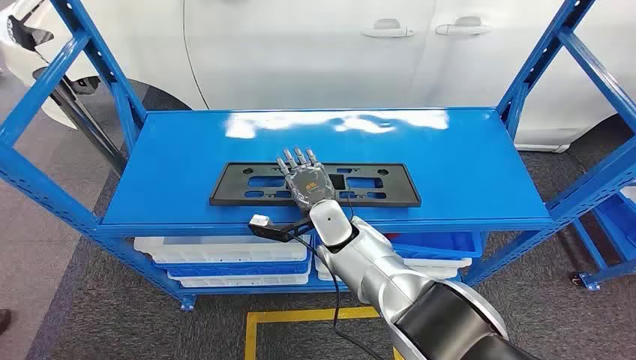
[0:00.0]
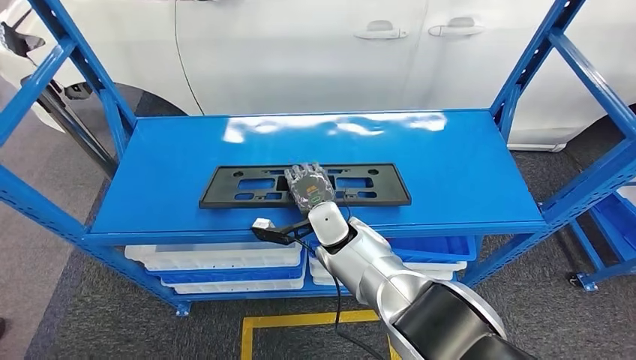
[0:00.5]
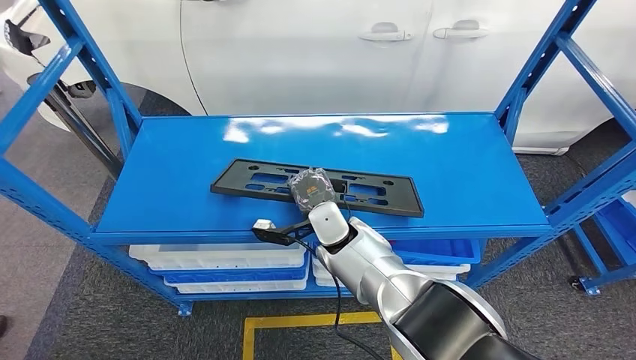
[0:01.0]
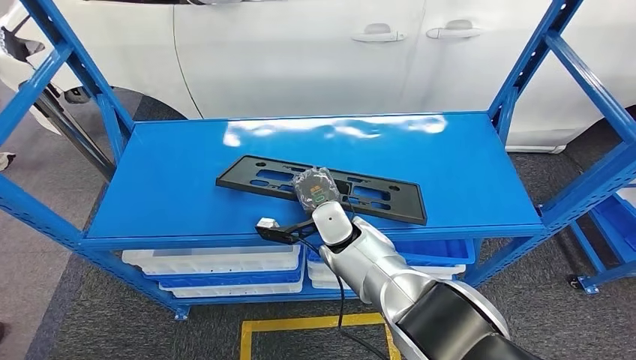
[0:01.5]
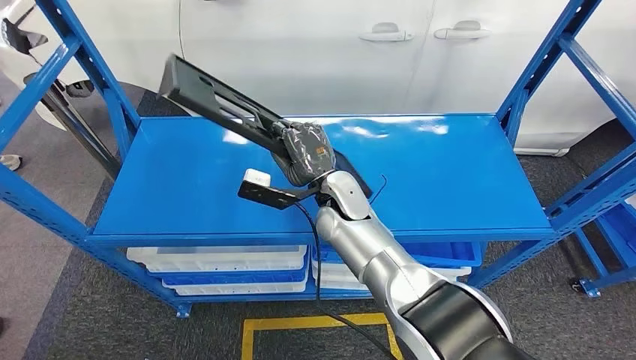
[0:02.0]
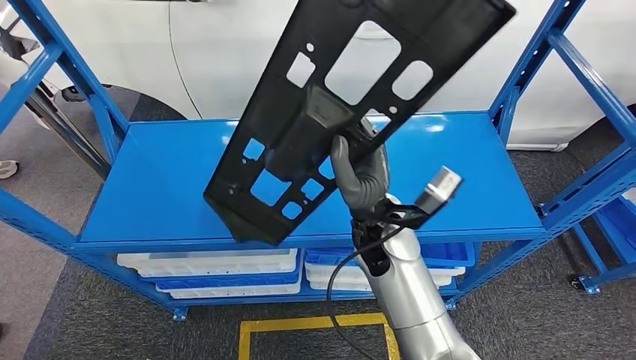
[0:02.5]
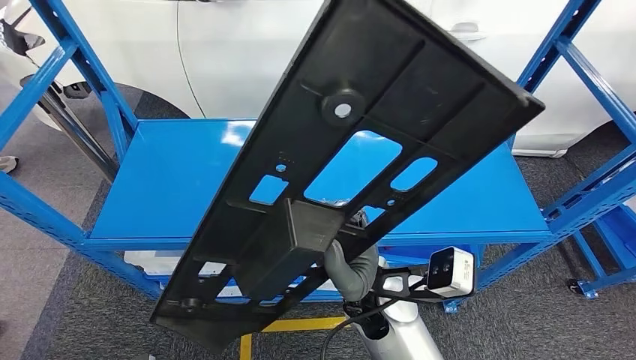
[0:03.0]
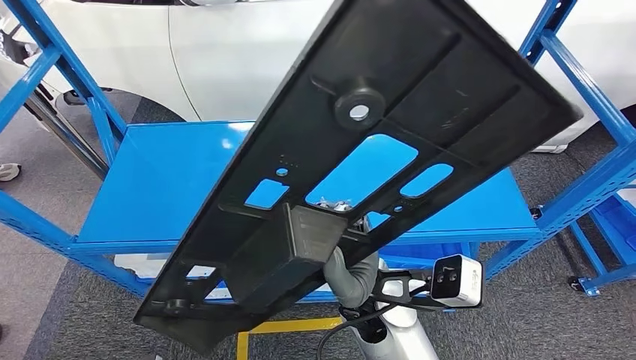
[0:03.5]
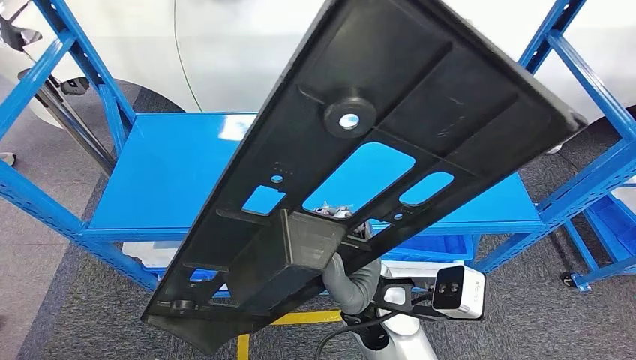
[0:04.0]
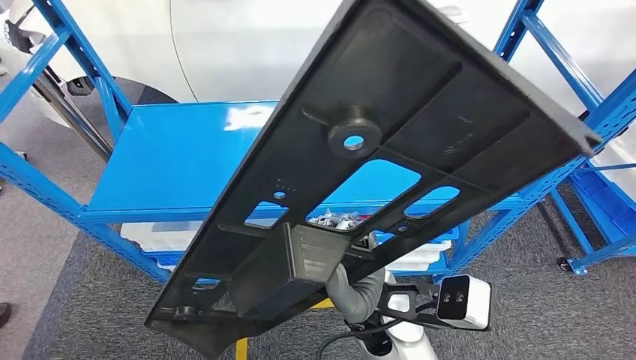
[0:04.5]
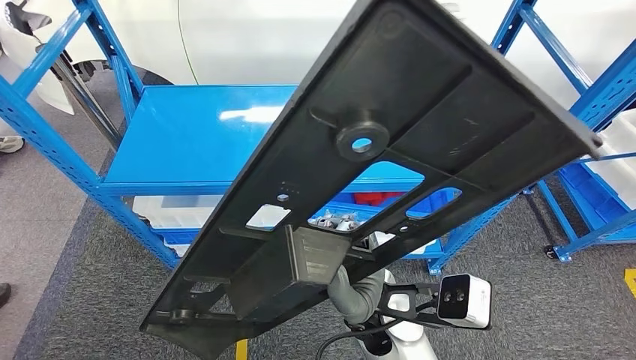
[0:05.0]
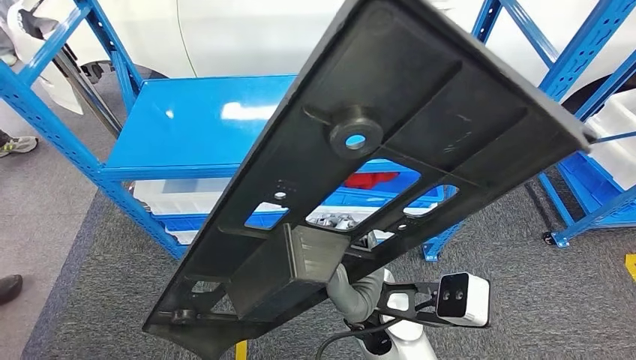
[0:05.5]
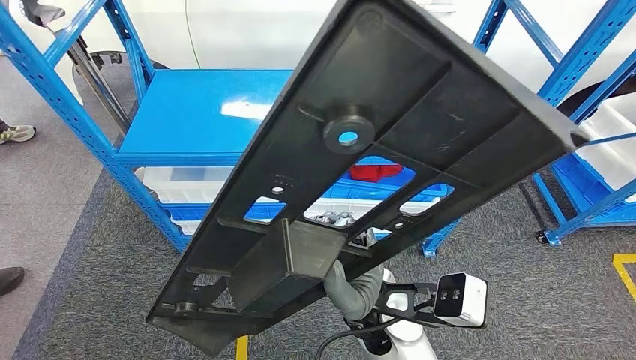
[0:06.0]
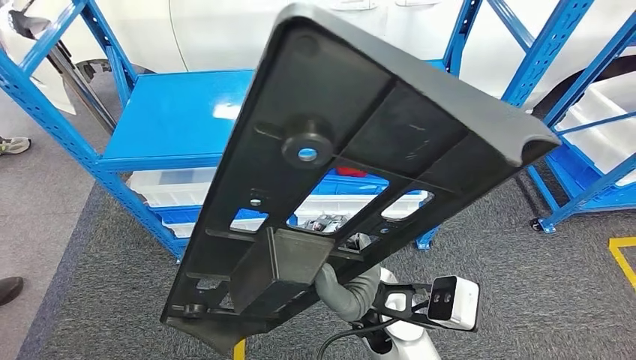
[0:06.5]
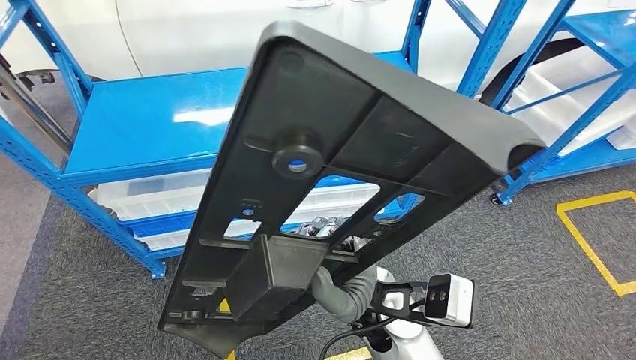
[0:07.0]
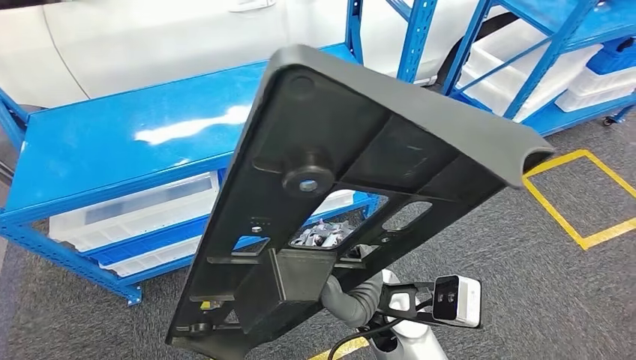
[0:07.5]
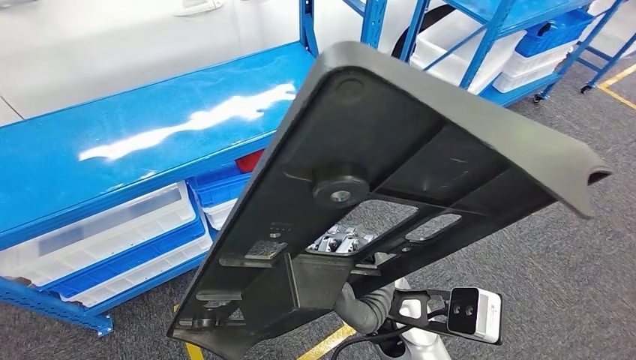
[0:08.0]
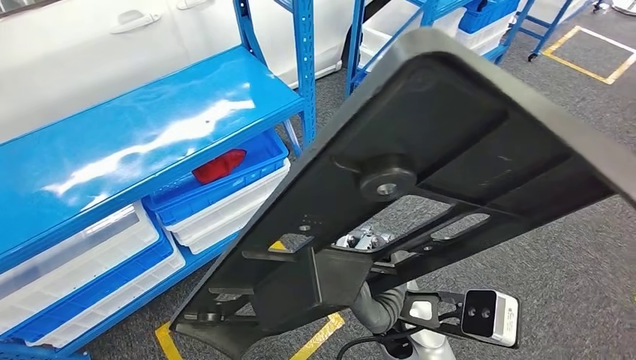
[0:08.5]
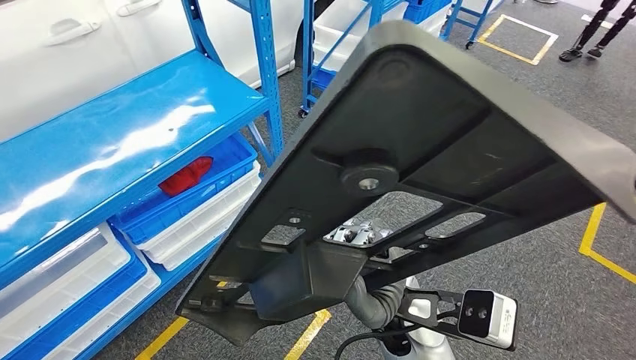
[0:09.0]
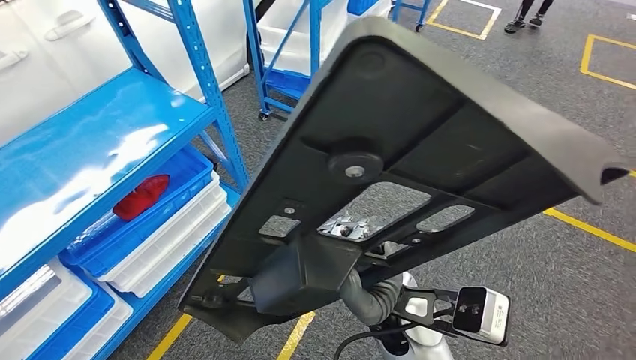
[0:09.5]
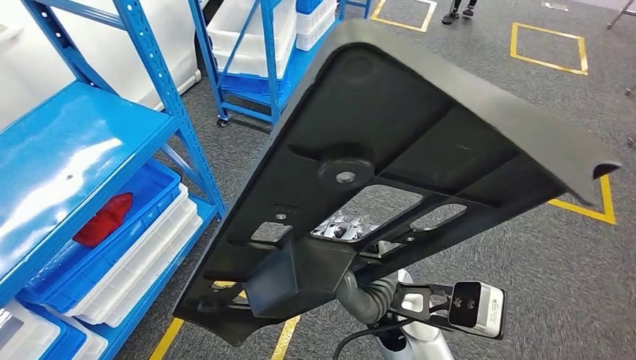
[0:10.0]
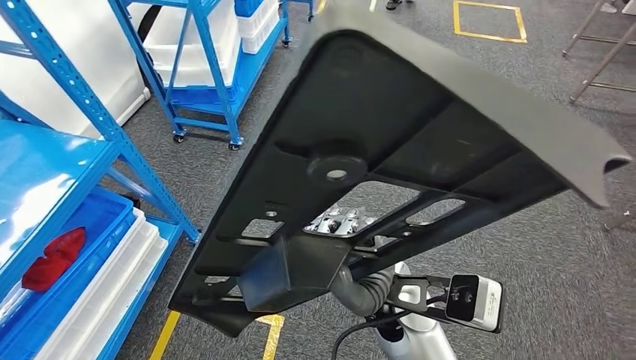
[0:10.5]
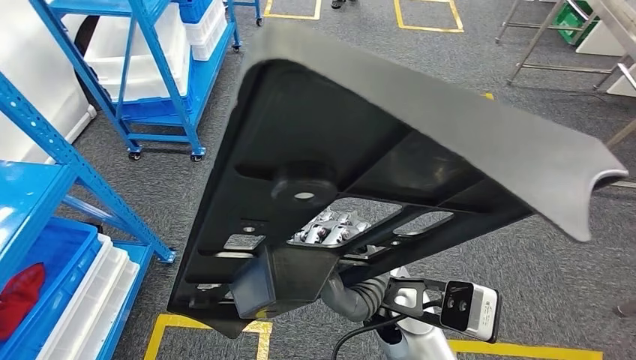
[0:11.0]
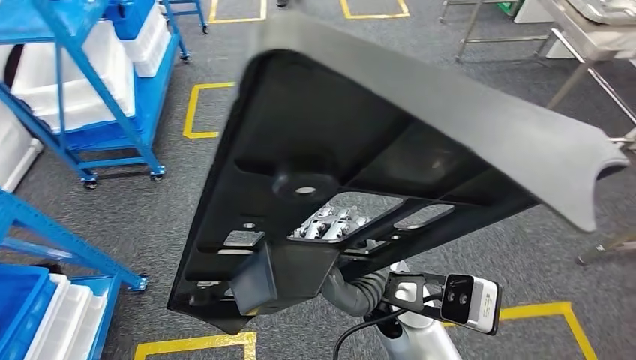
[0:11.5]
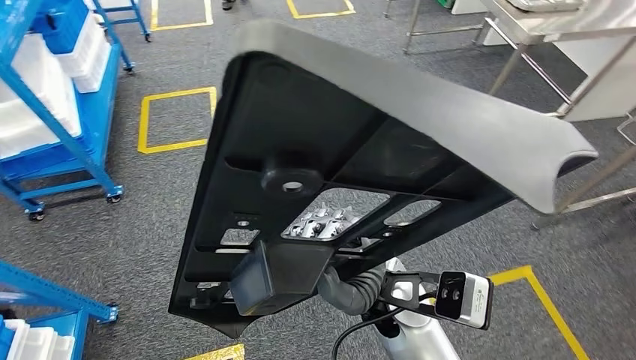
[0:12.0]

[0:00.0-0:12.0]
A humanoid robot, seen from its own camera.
Step, 0:00.0 to 0:04.5: Pick up the large material from the shelf.

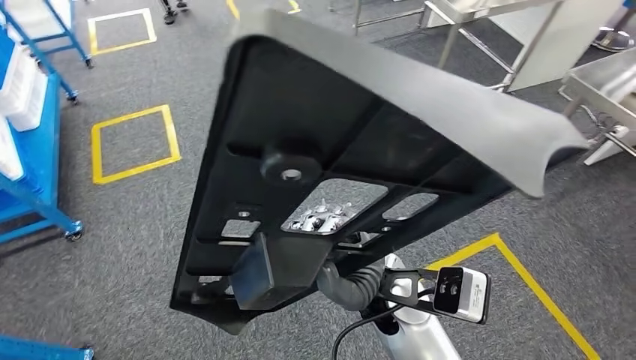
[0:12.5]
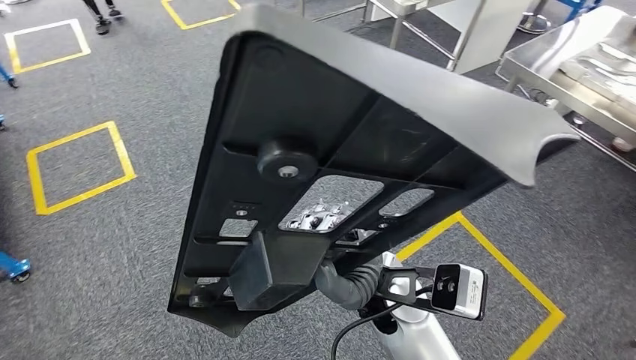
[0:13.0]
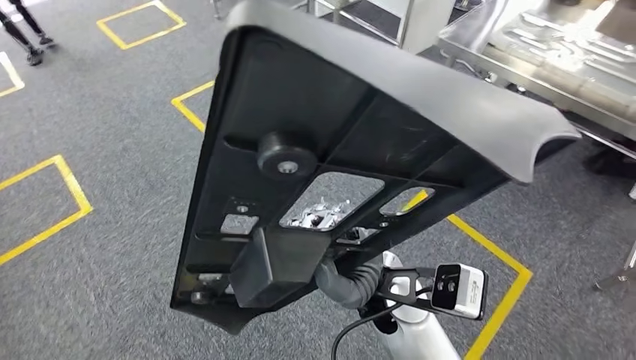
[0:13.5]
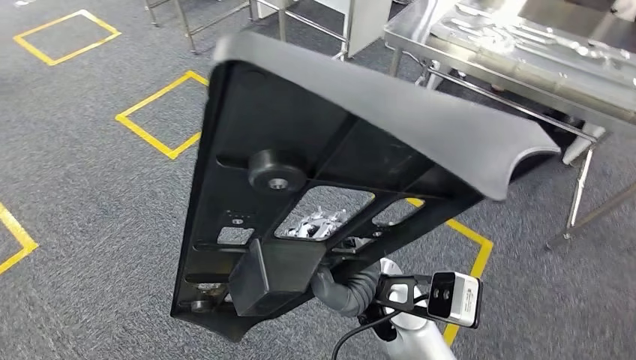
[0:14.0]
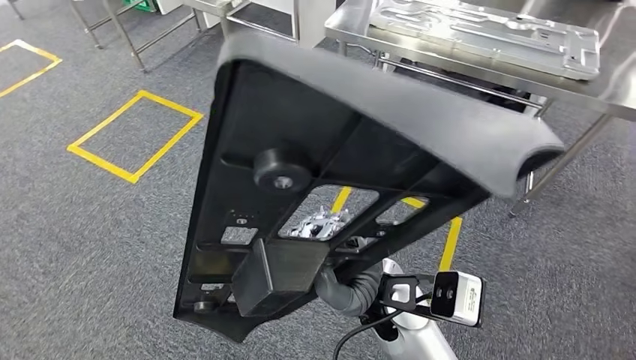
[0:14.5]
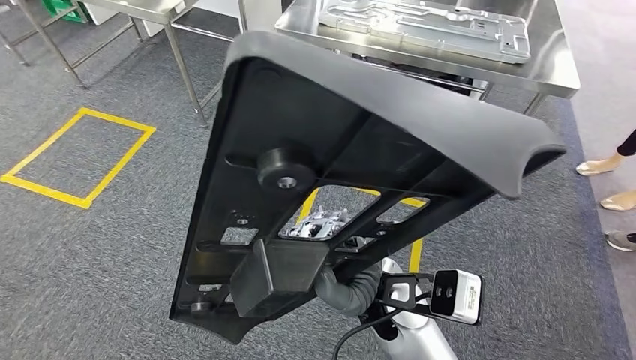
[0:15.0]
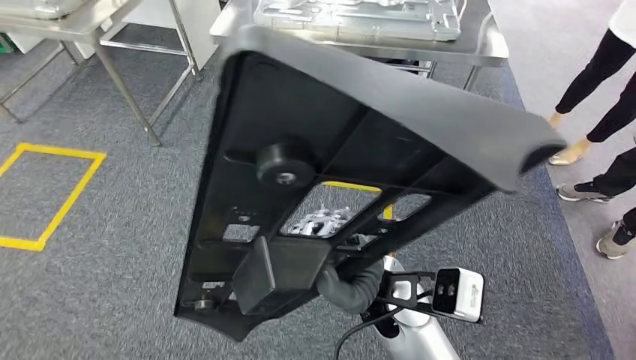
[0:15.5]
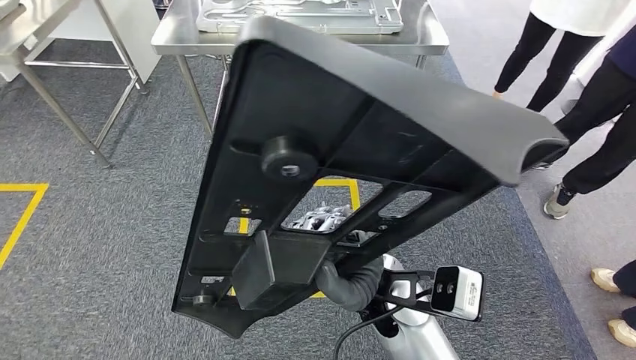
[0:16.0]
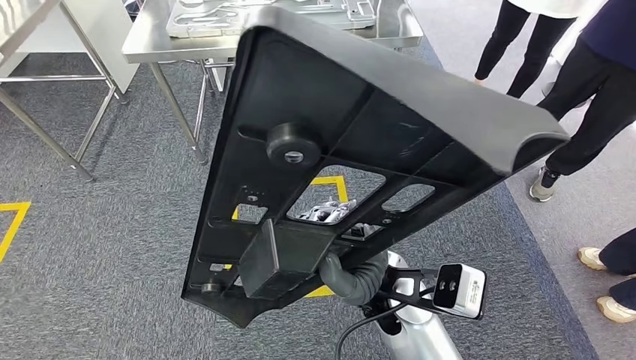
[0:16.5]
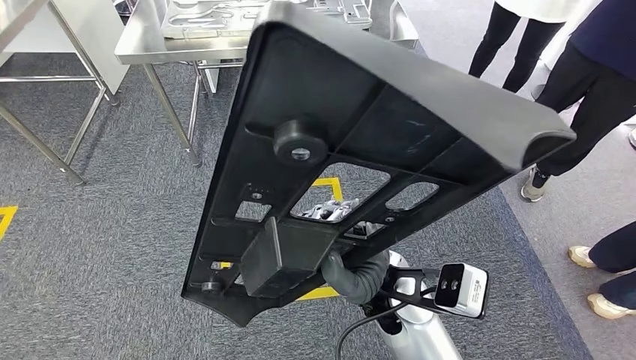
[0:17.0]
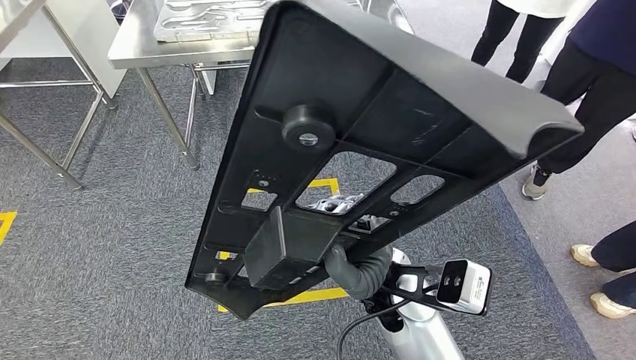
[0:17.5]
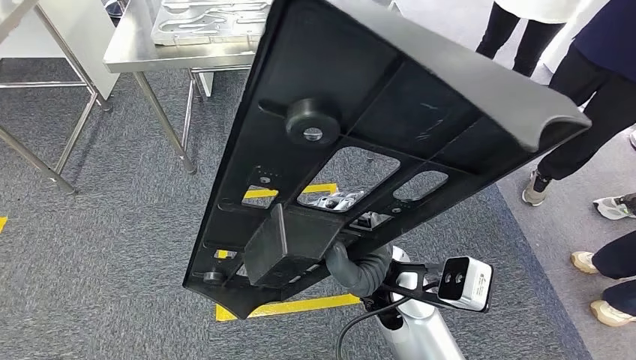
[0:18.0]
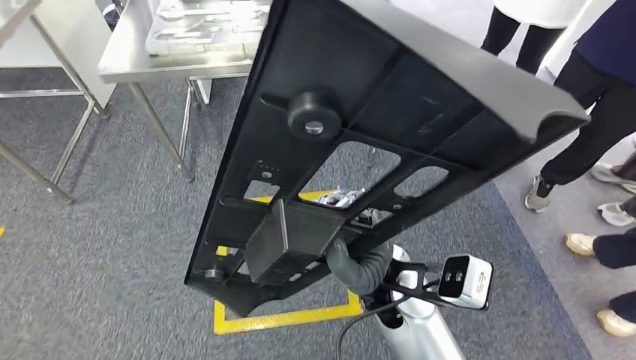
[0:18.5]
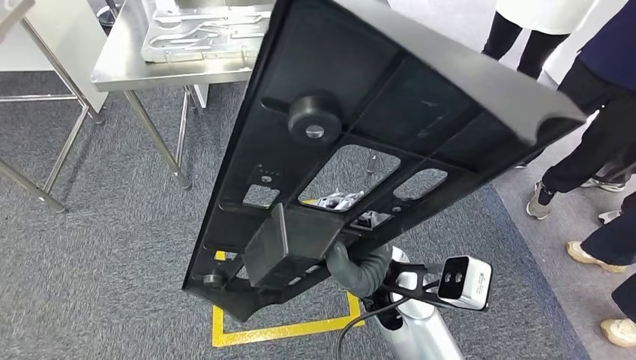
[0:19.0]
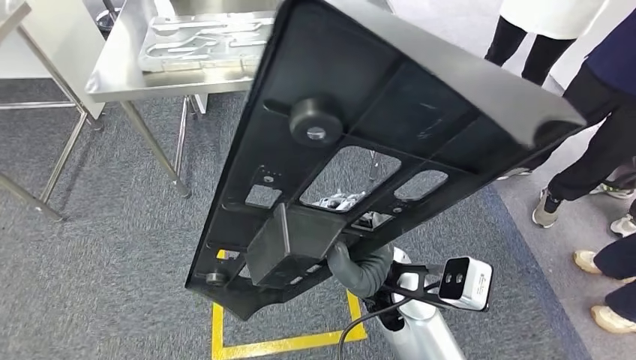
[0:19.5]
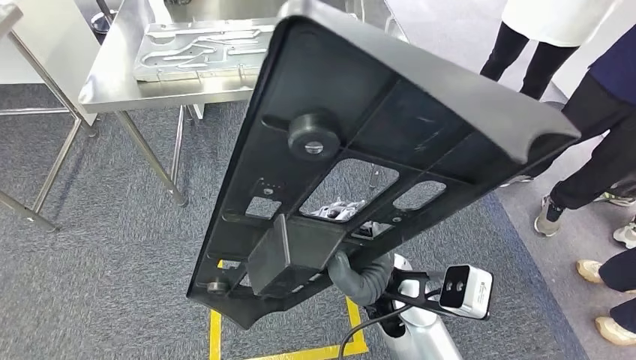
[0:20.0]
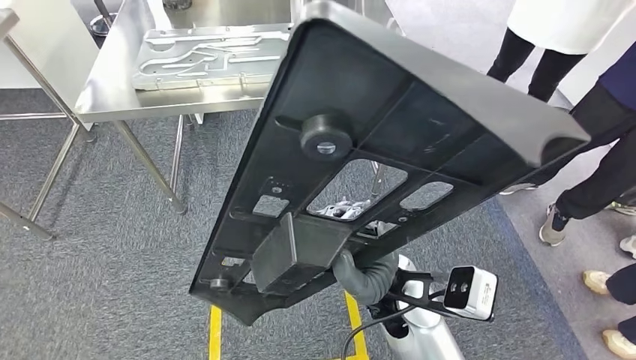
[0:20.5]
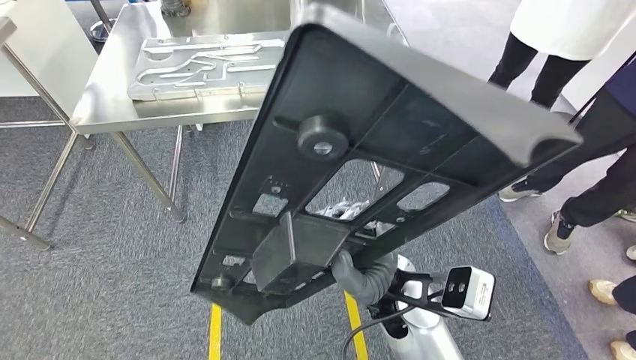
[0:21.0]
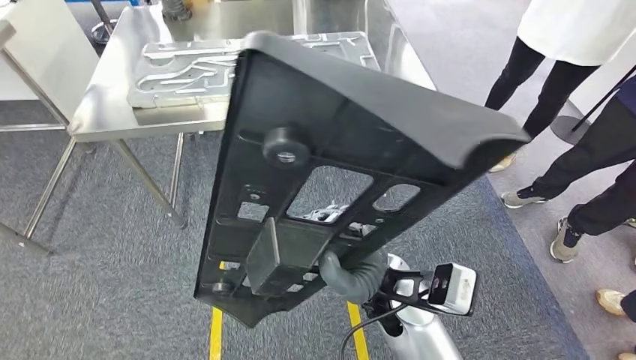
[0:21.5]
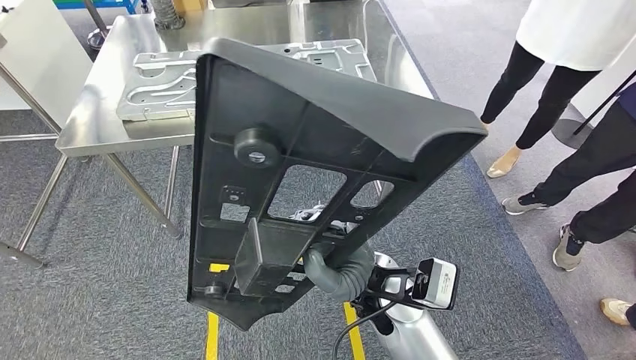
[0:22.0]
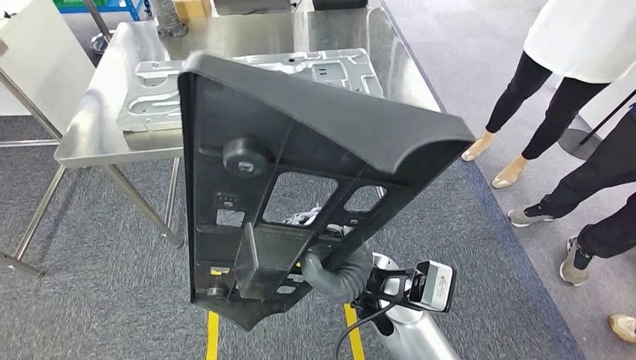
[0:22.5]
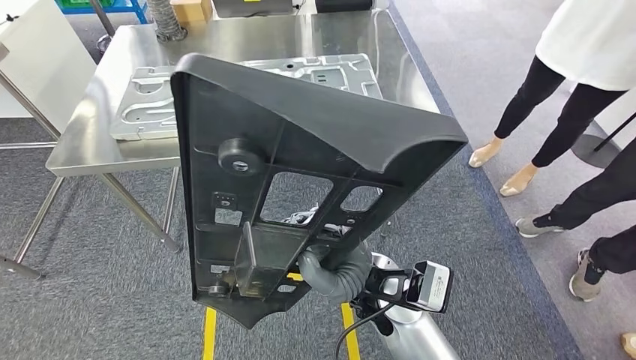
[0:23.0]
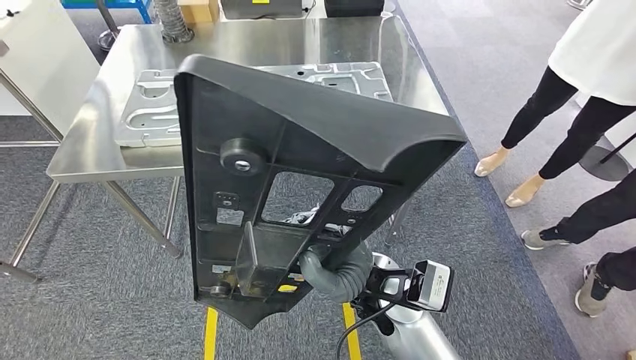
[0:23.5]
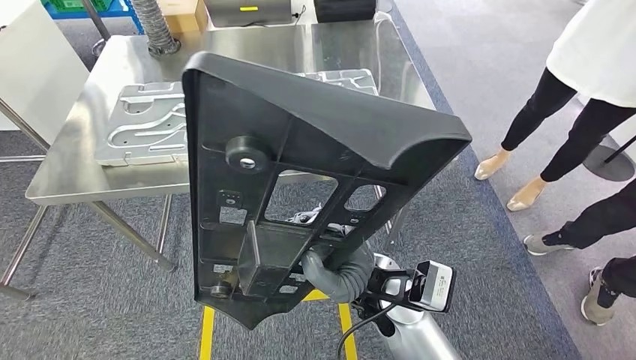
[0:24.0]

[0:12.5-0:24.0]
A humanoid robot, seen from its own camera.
Step, 0:12.5 to 0:20.0: Move the large material to the workbench.
